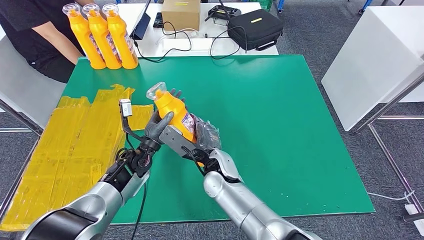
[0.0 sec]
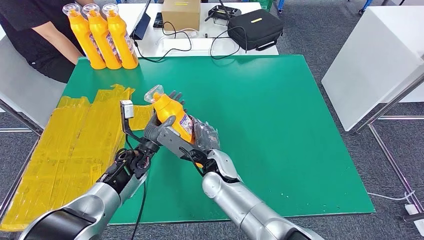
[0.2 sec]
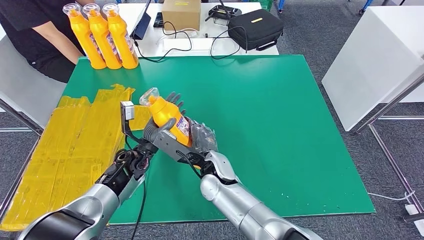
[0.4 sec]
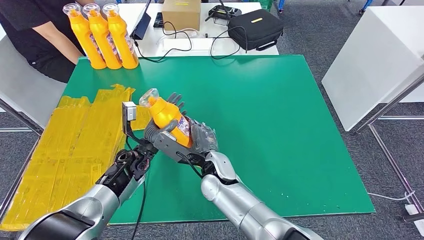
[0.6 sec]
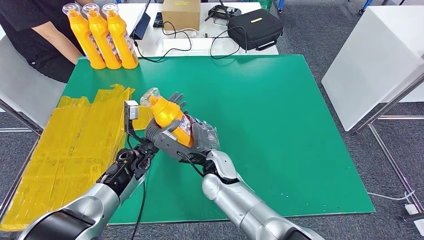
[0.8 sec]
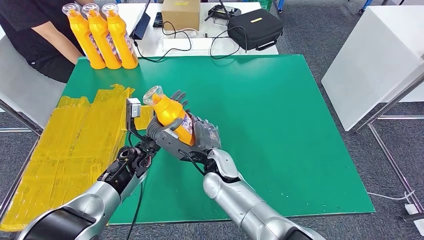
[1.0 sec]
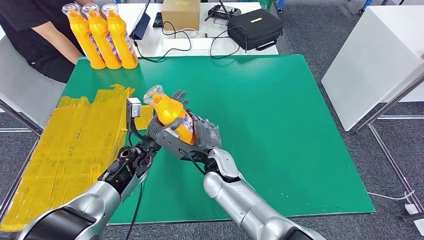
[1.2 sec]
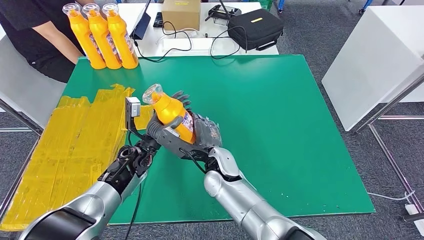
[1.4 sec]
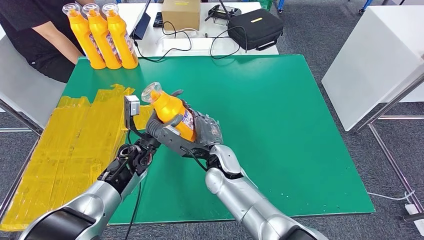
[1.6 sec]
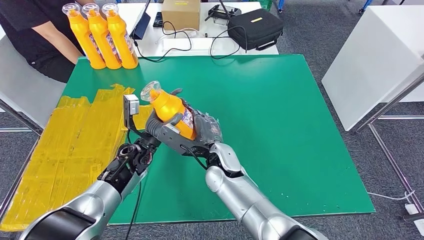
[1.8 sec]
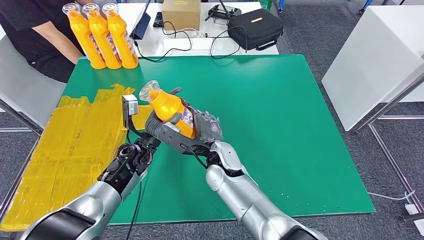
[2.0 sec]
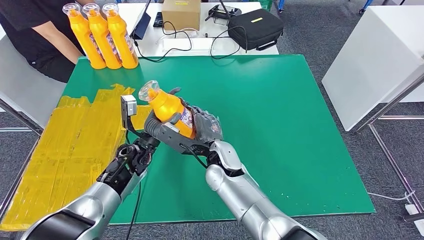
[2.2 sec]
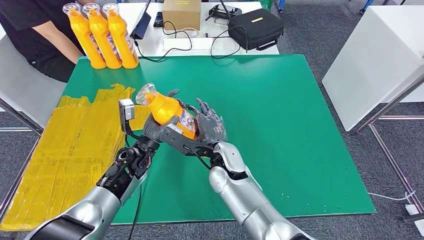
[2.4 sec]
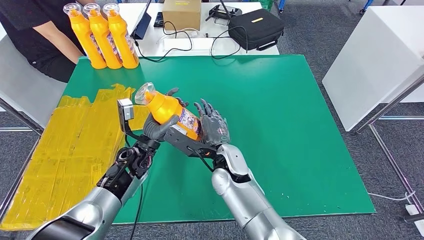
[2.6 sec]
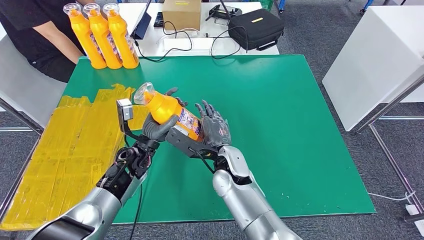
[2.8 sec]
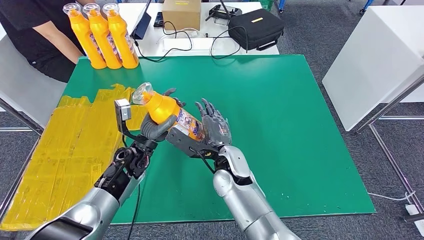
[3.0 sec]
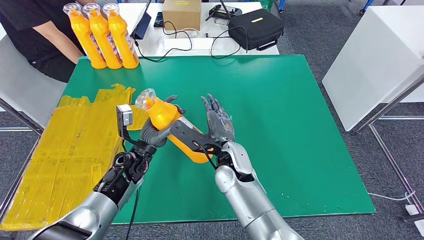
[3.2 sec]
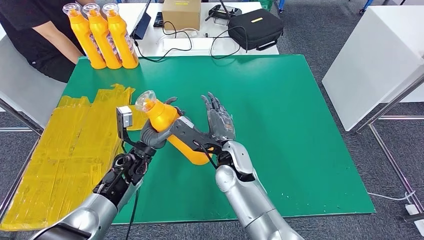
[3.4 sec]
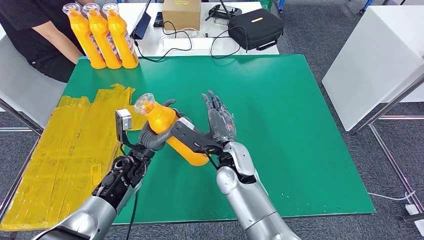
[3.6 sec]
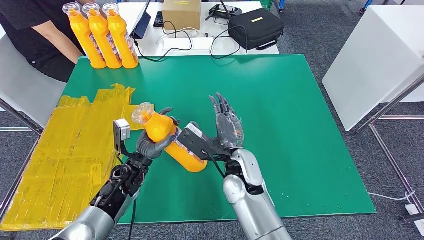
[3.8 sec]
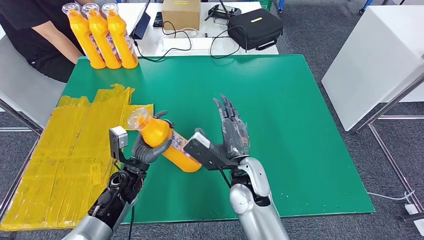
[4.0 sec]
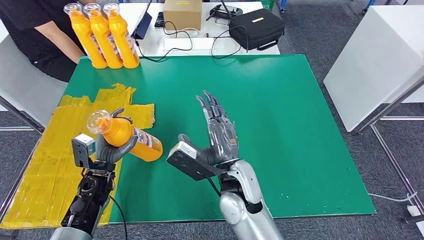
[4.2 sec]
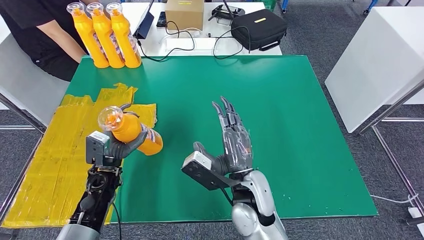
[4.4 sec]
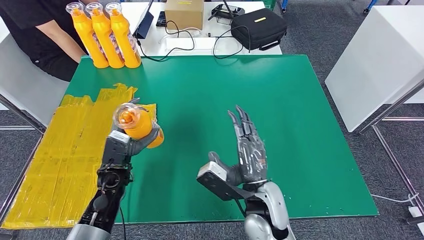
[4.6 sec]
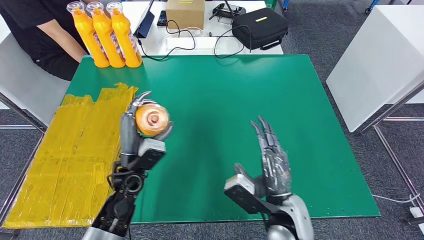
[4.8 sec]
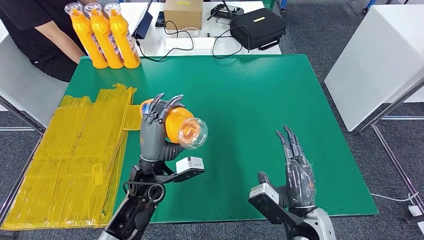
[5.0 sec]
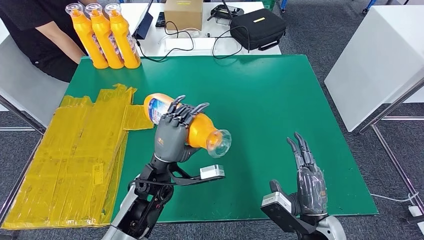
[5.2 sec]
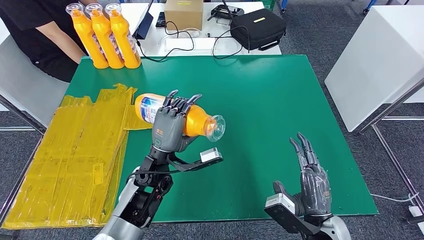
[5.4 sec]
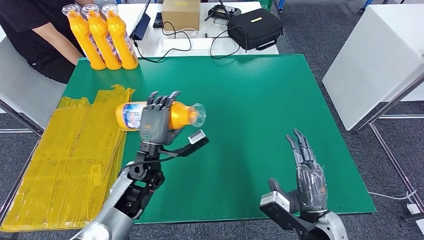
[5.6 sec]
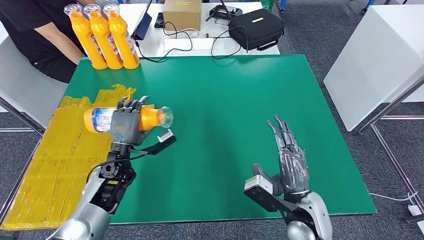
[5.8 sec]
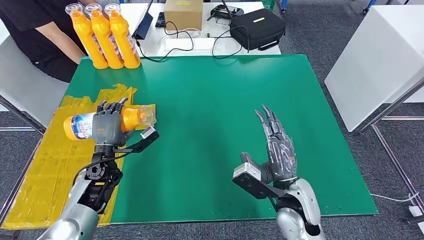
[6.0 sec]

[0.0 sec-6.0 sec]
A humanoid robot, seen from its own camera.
Step, 0.0 sec to 5.8 sec: Flip the fast-moving consumer goods bottle to the front side.
0.0 sec to 3.0 sec: The hands stay close to where they were, moving slightly.
